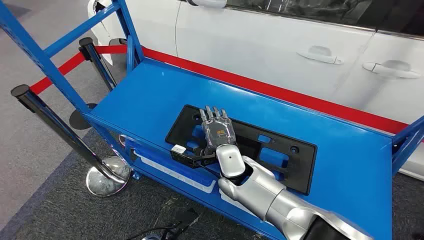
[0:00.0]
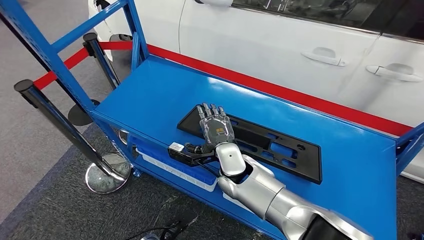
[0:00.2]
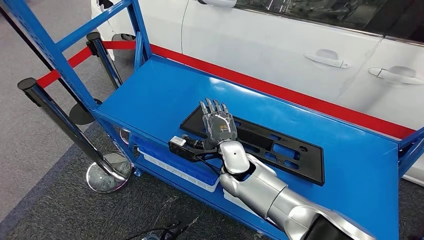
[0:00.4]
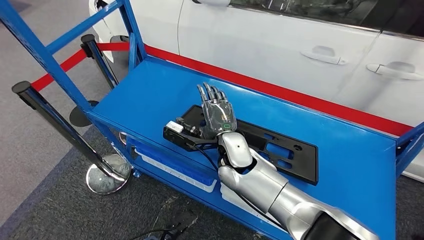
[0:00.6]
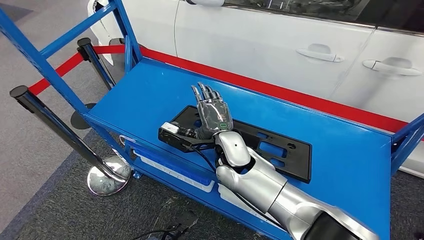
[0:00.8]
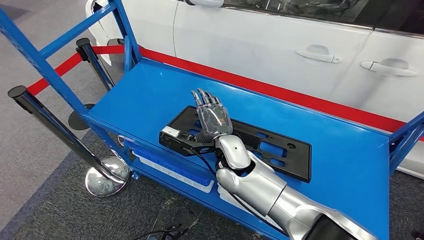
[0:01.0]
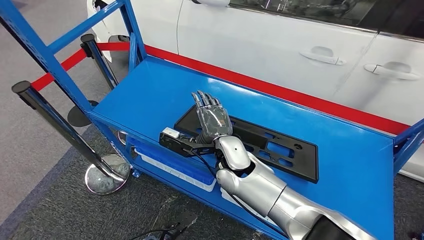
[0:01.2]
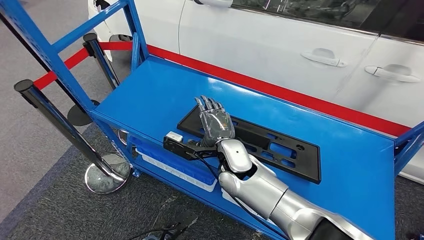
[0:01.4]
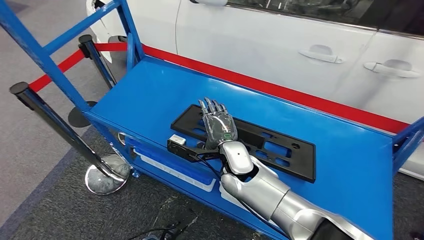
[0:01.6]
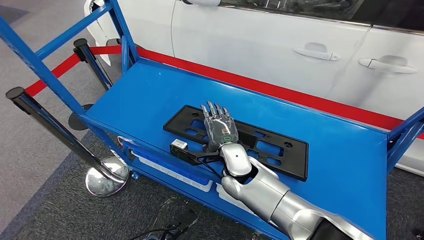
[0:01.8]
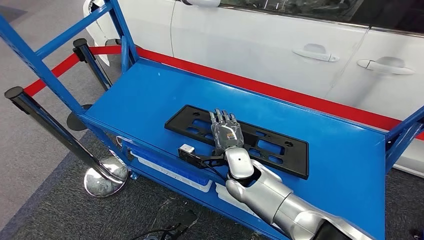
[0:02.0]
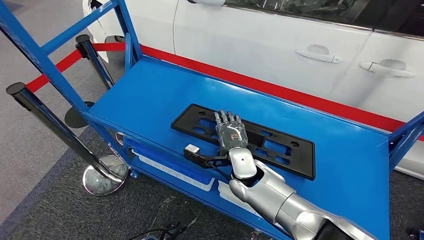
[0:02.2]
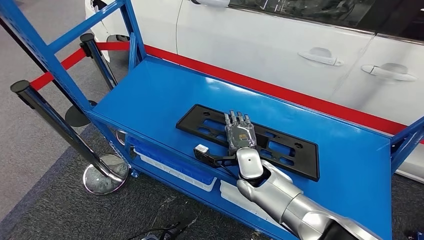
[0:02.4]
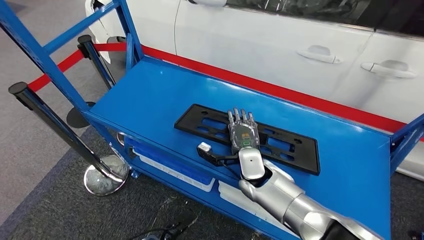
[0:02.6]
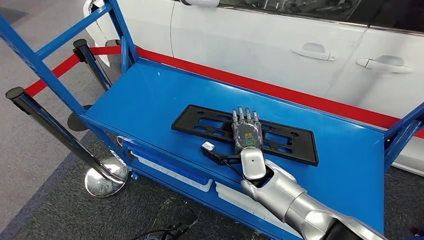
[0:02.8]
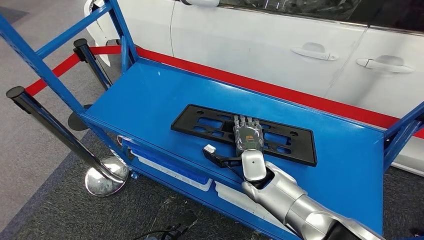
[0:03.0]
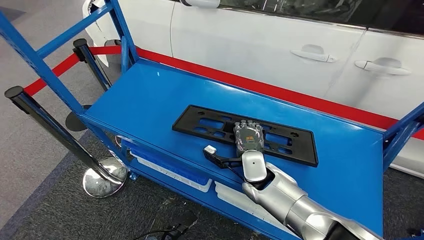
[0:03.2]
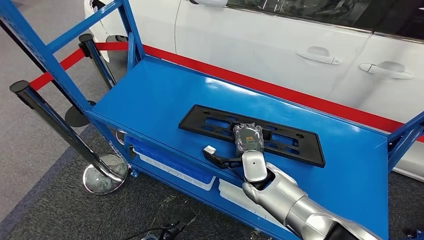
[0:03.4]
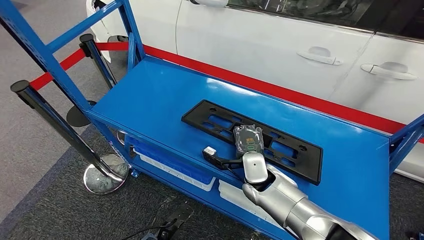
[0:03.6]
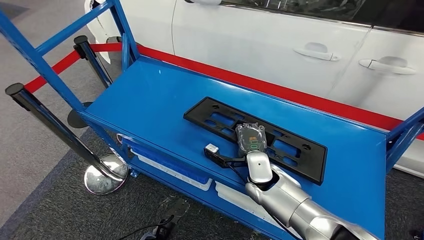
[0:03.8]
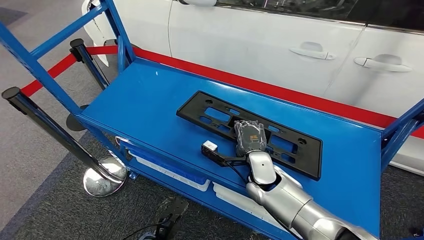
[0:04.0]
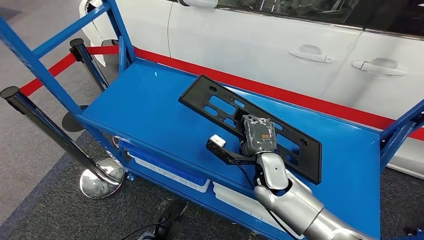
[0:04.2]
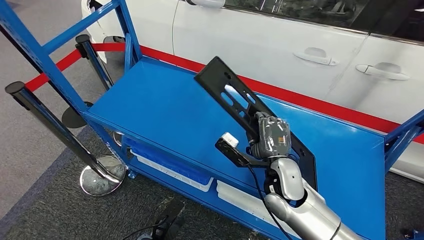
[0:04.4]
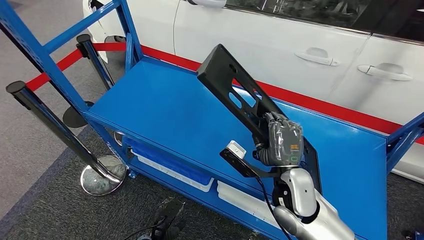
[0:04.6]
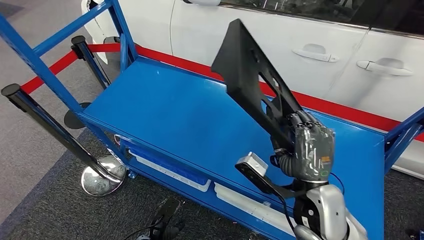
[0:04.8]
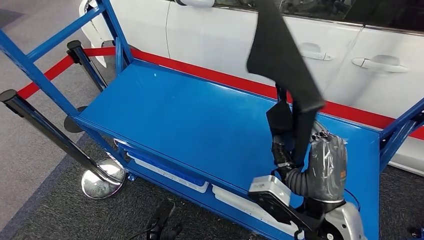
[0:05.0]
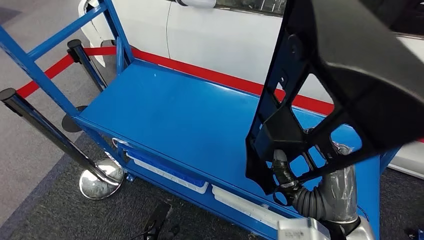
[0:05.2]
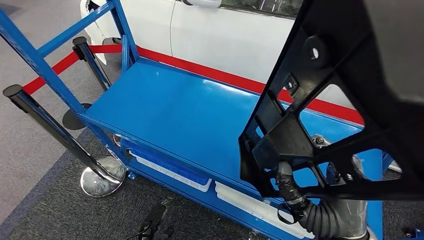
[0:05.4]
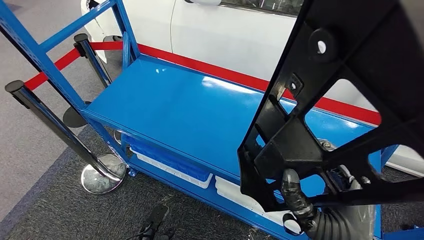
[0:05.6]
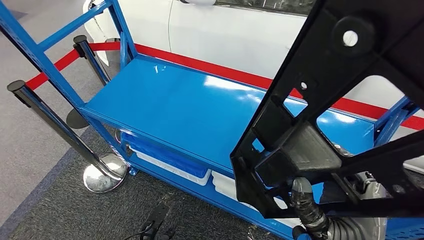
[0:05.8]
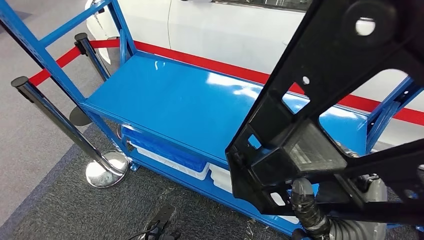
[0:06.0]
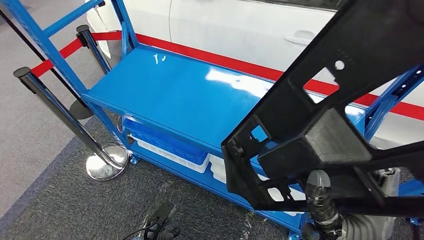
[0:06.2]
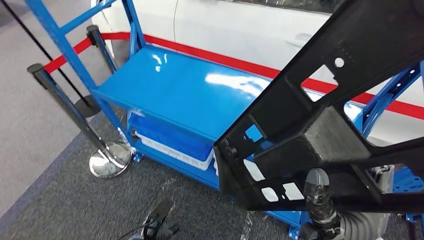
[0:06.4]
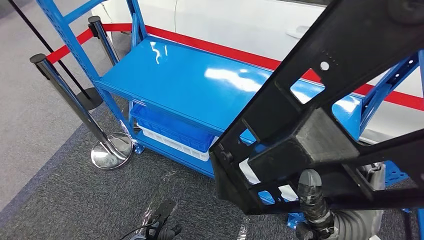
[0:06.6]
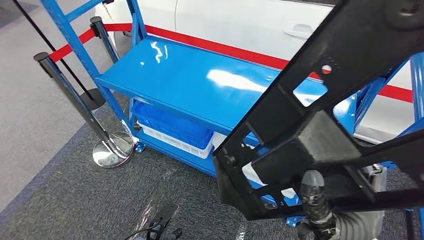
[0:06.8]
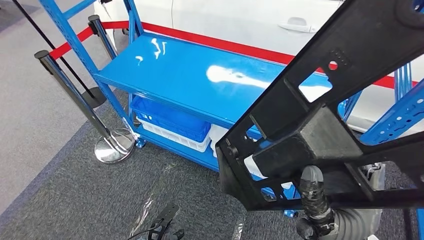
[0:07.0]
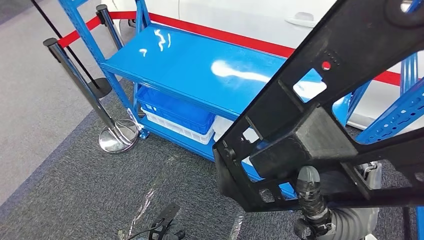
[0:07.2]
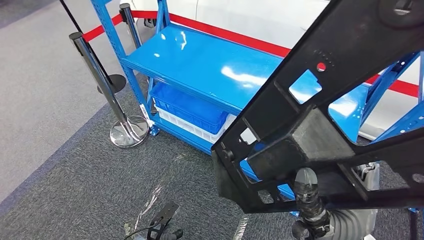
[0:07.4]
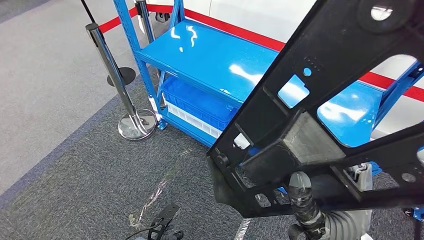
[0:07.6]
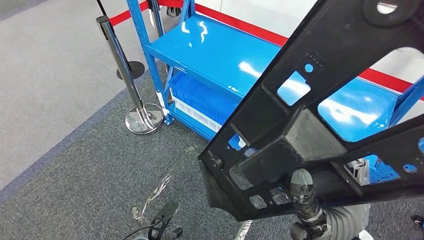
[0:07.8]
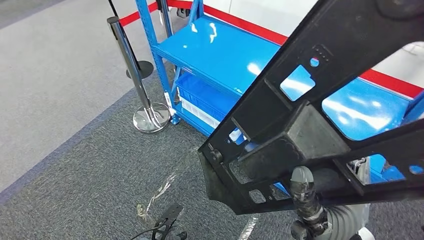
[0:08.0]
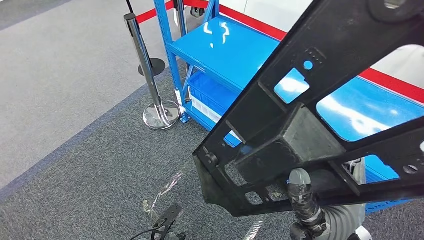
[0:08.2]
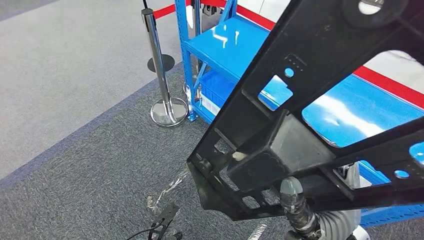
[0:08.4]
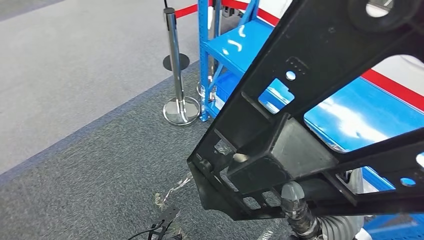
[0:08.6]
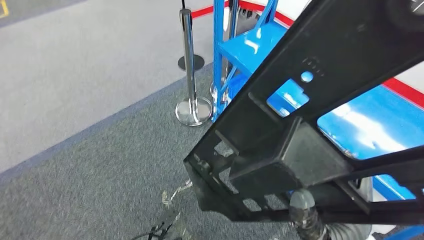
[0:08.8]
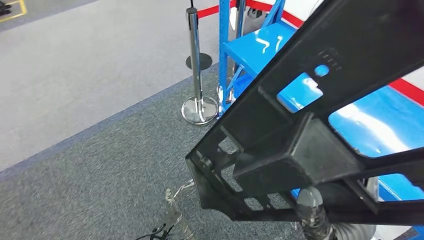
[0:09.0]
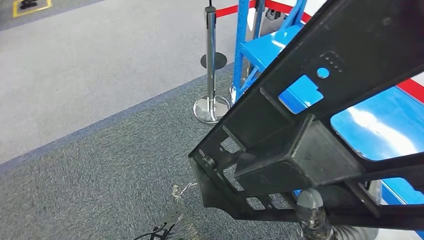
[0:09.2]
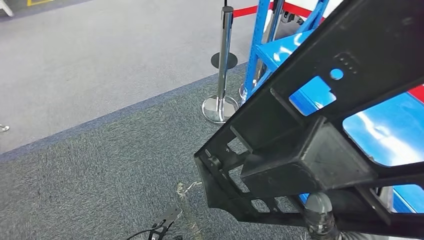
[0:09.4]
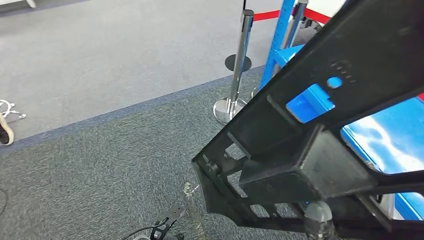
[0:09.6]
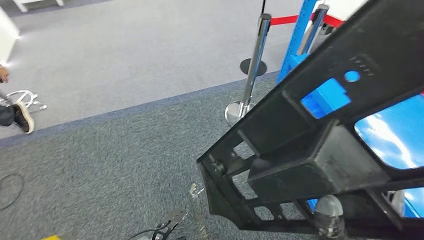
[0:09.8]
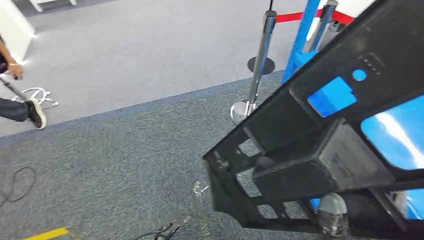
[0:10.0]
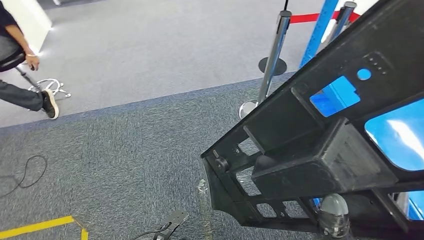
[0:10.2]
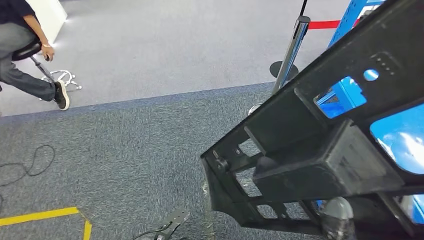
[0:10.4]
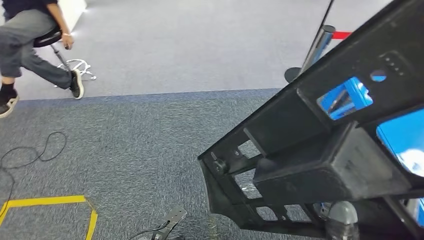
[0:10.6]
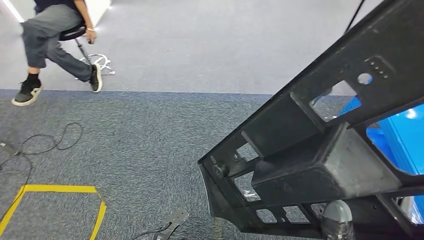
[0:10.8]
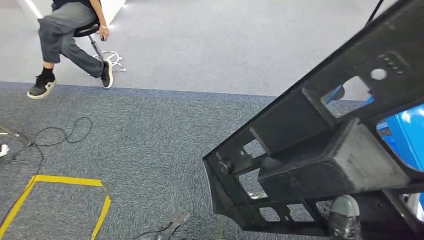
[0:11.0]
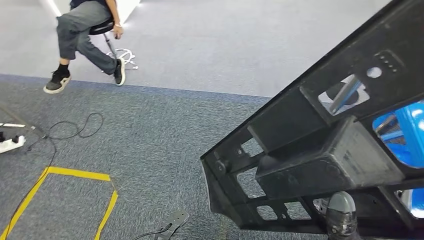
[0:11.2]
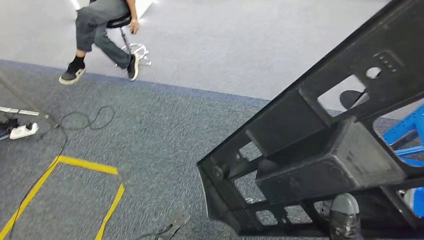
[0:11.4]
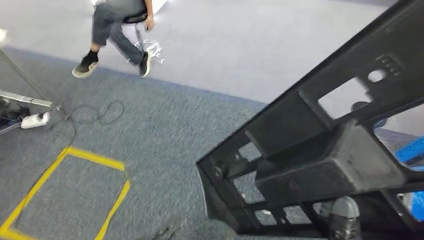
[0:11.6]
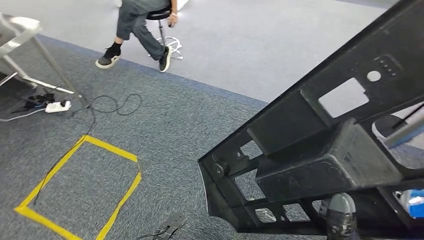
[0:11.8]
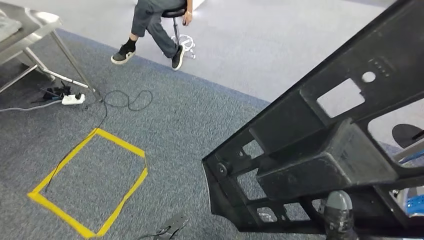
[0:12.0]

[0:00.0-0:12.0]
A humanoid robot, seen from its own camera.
Step, 0:00.0 to 0:05.8: Pick up the large material from the shelf.

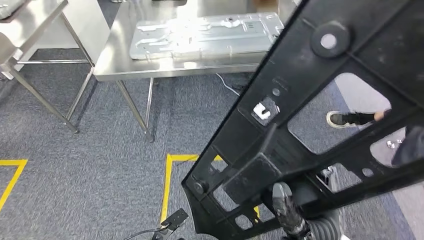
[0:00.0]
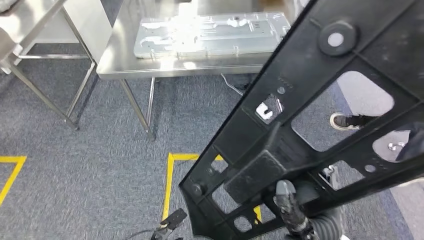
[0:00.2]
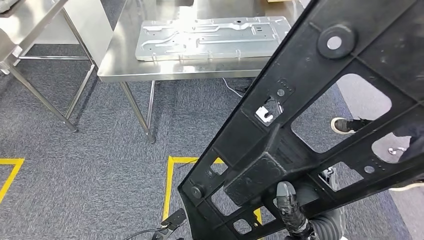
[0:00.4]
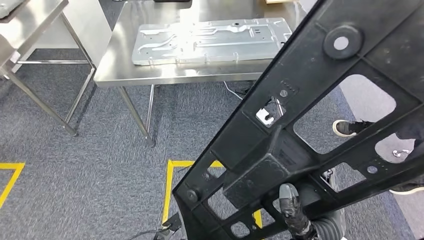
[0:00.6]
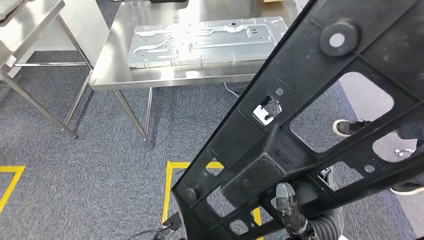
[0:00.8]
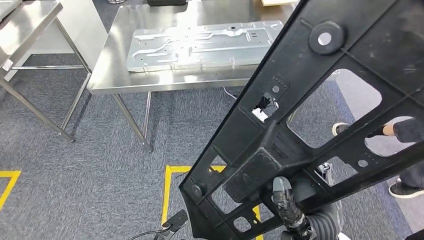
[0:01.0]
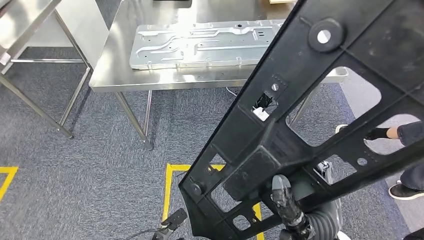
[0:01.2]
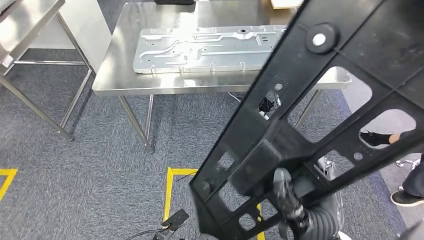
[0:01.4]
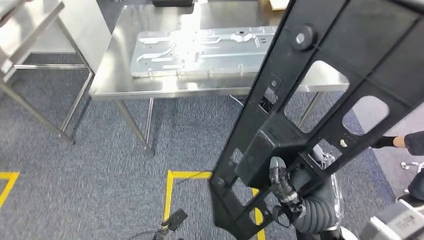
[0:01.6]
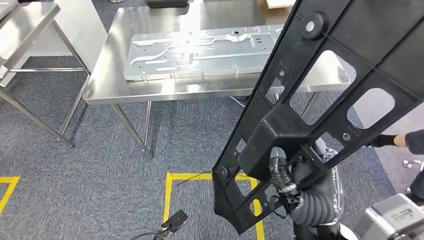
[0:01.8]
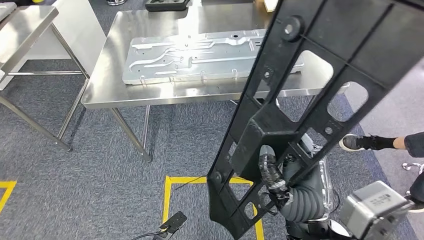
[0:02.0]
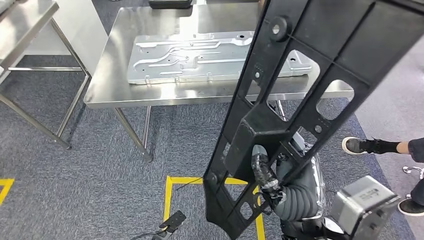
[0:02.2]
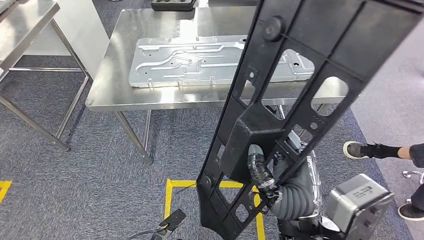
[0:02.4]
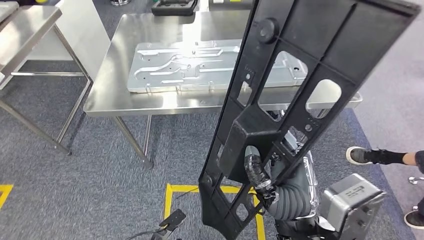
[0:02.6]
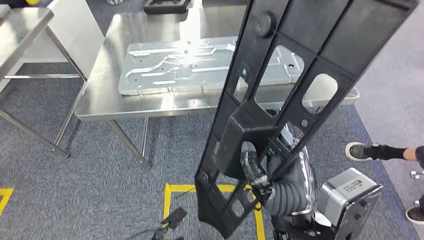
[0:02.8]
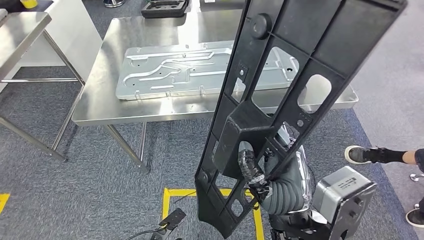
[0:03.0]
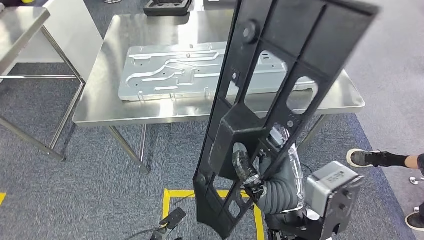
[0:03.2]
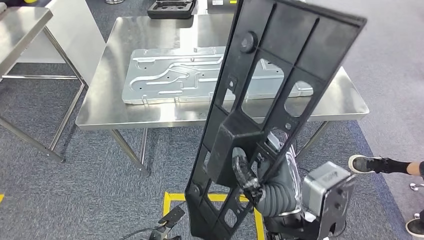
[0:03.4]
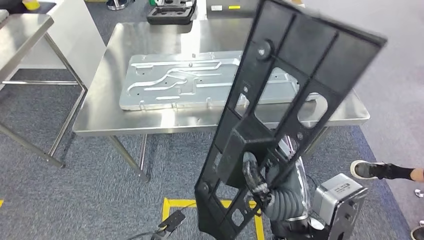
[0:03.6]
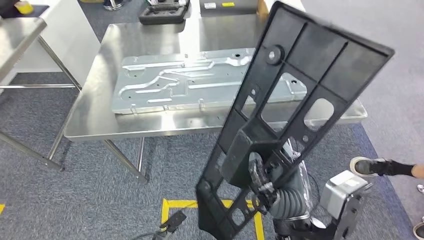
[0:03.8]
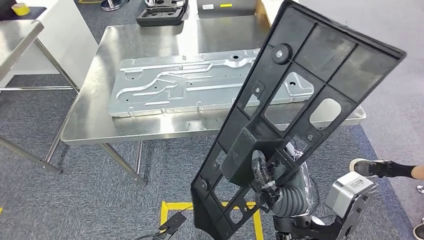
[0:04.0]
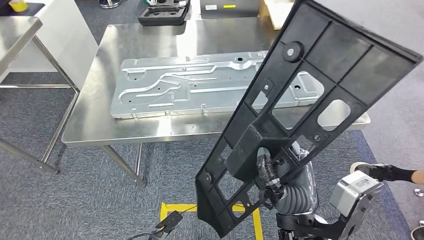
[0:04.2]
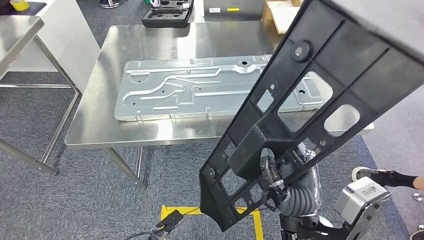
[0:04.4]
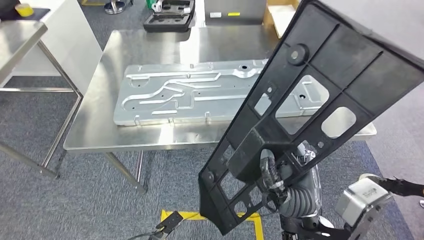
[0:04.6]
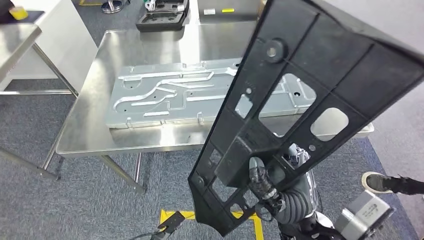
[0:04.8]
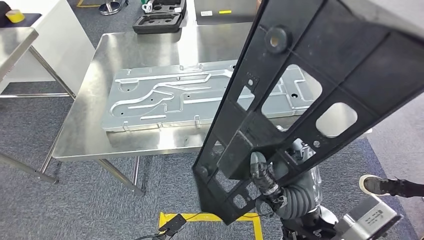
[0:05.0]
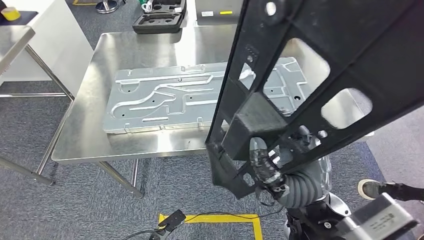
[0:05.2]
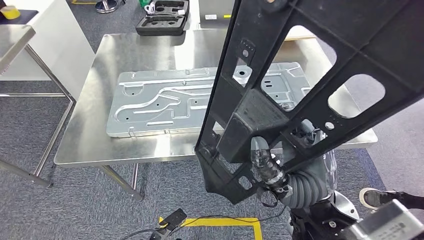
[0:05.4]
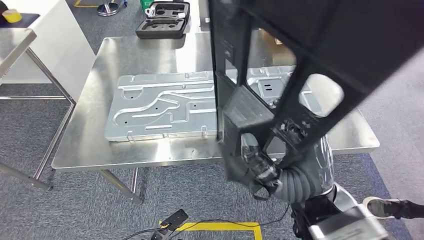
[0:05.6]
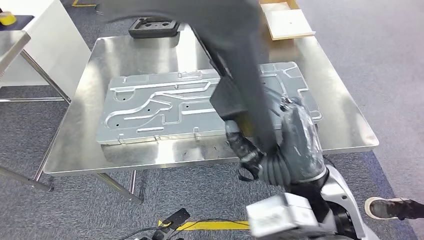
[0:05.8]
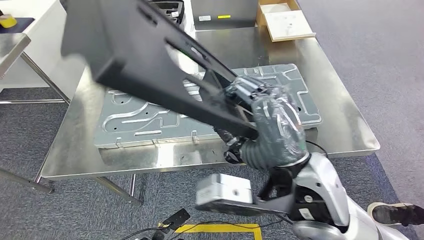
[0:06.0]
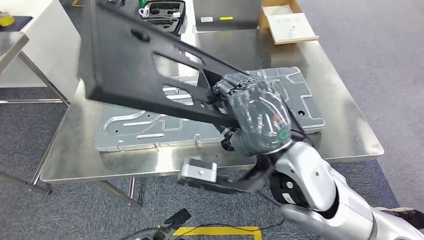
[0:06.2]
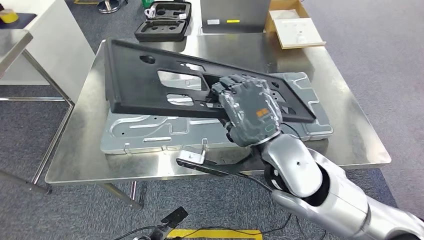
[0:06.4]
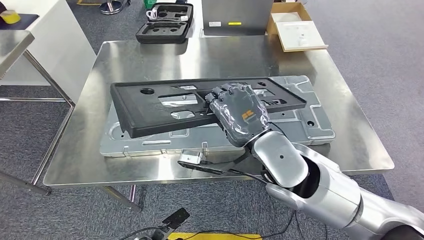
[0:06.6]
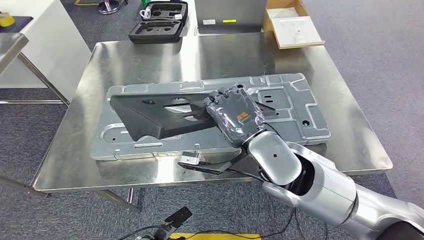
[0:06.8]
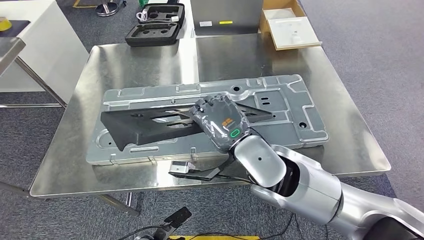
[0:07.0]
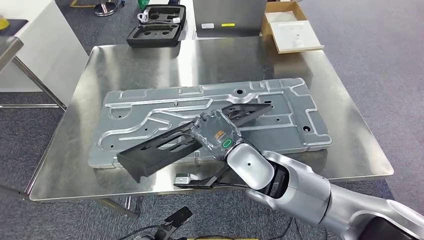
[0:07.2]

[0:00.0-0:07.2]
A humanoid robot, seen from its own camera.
Step, 0:00.0 to 0:04.2: Move the large material to the workbench.
